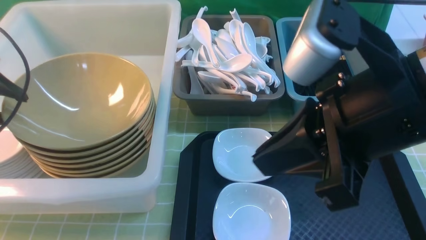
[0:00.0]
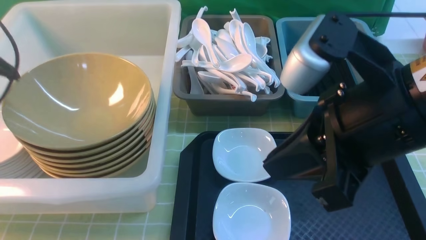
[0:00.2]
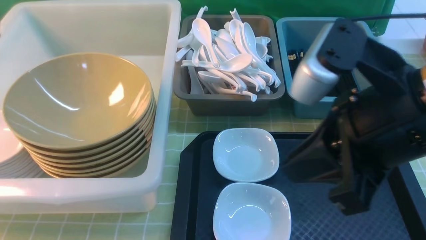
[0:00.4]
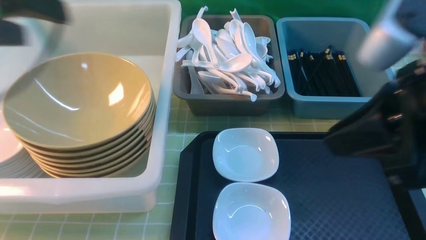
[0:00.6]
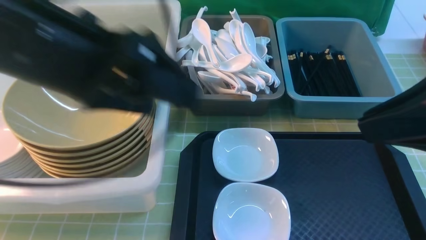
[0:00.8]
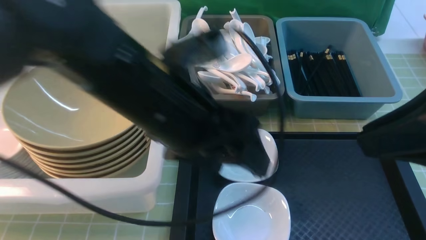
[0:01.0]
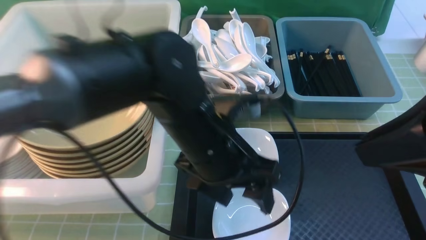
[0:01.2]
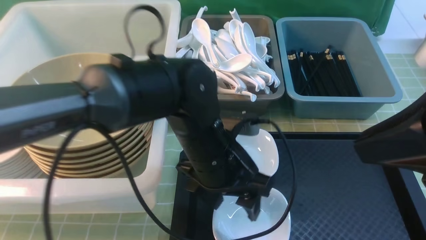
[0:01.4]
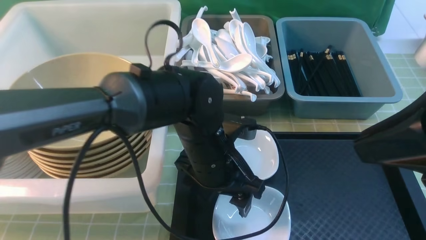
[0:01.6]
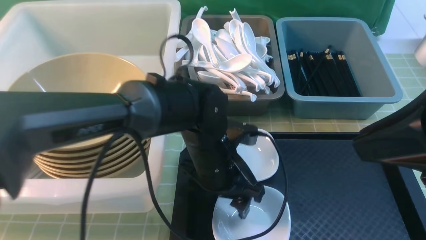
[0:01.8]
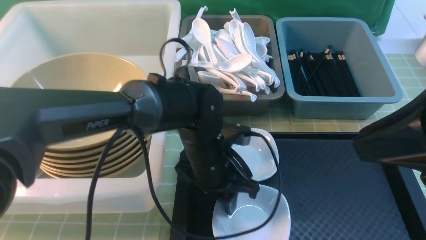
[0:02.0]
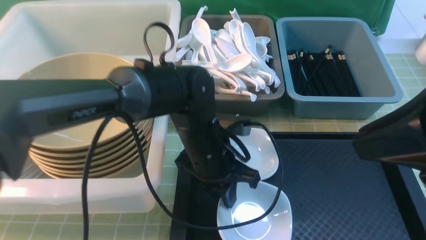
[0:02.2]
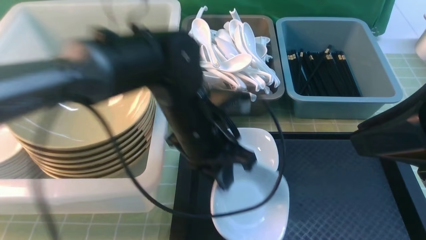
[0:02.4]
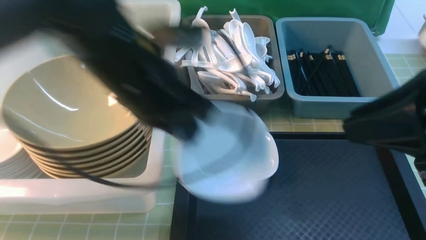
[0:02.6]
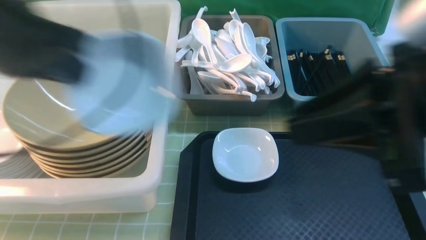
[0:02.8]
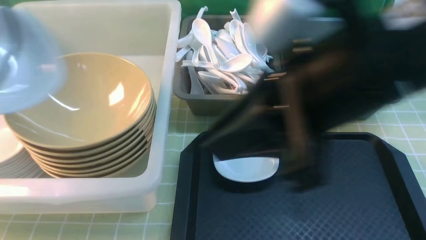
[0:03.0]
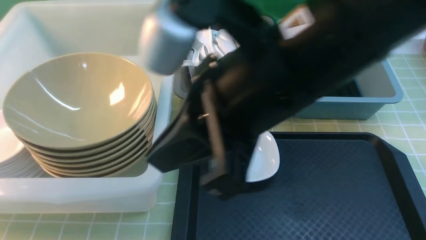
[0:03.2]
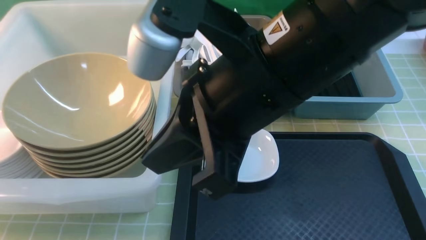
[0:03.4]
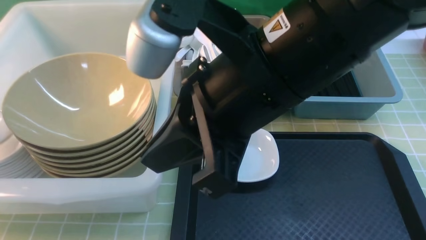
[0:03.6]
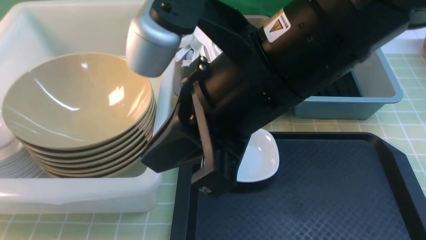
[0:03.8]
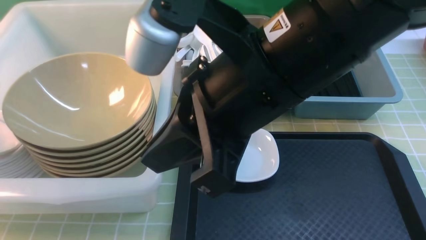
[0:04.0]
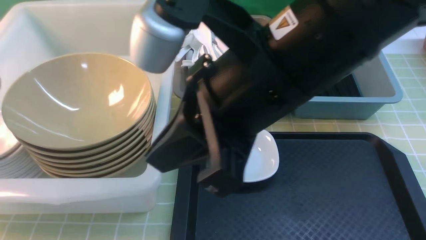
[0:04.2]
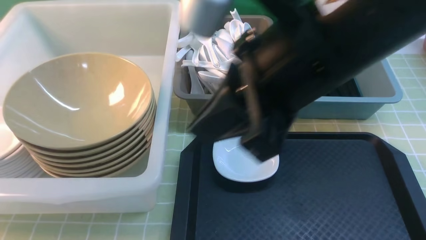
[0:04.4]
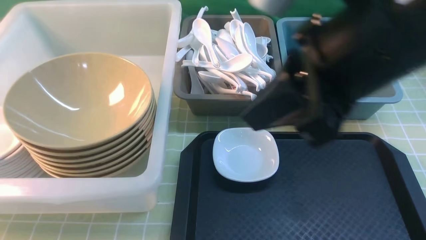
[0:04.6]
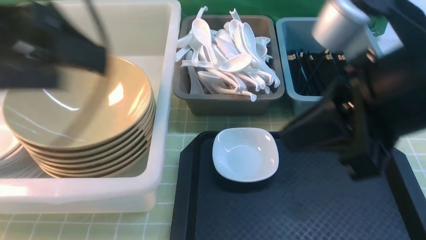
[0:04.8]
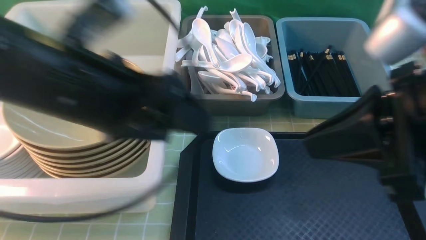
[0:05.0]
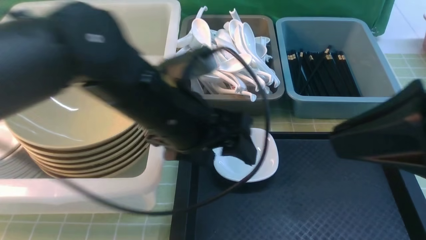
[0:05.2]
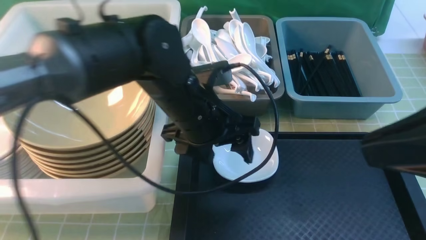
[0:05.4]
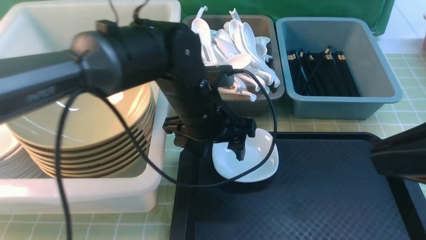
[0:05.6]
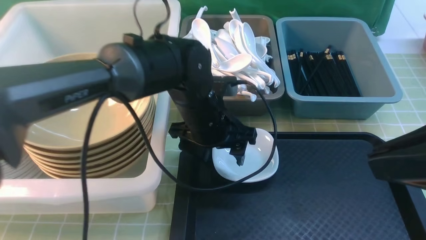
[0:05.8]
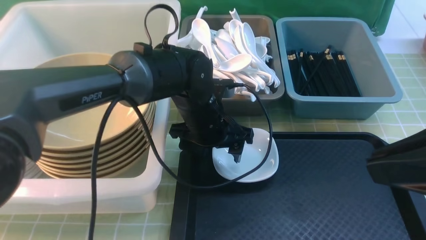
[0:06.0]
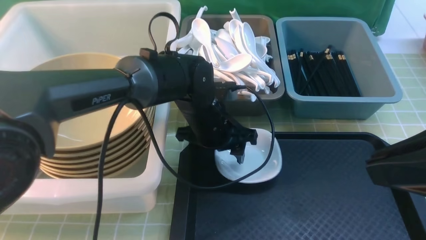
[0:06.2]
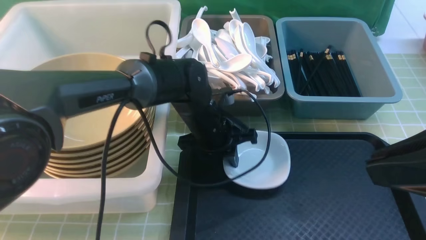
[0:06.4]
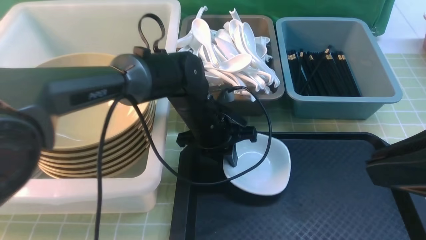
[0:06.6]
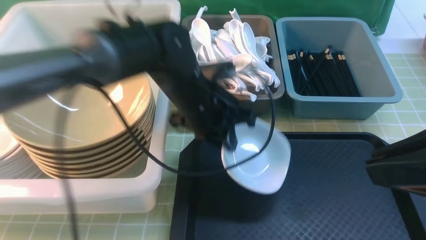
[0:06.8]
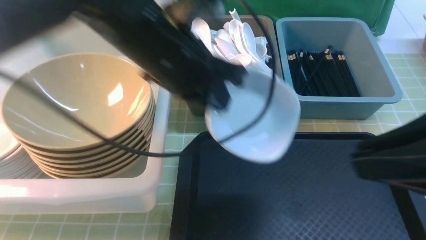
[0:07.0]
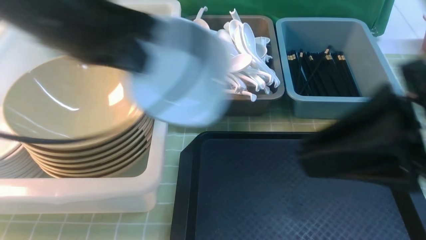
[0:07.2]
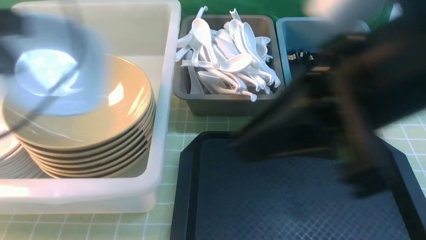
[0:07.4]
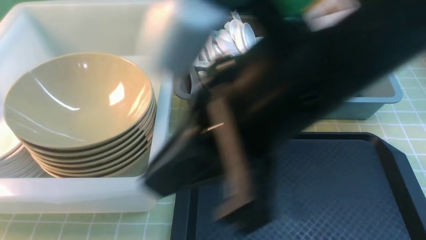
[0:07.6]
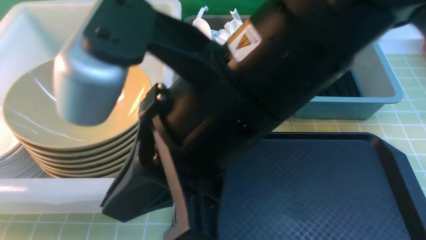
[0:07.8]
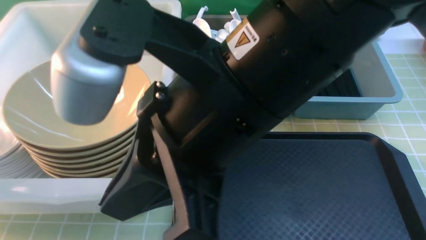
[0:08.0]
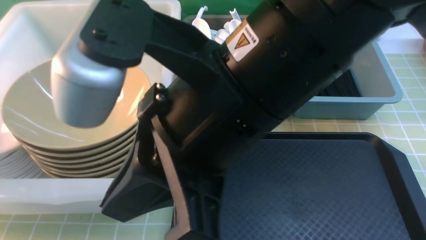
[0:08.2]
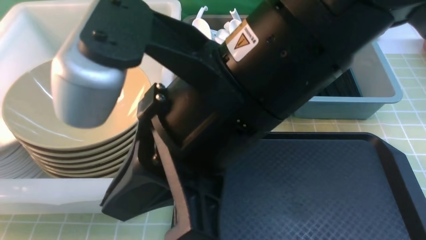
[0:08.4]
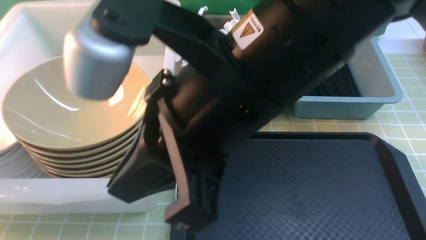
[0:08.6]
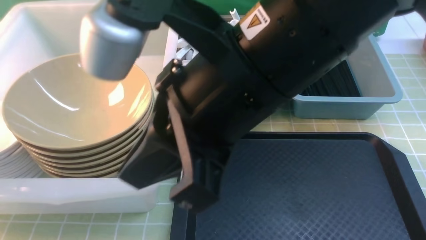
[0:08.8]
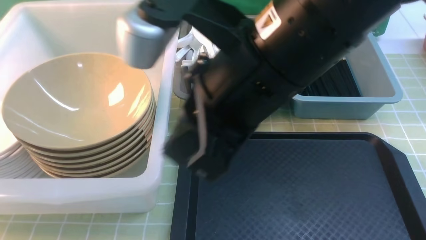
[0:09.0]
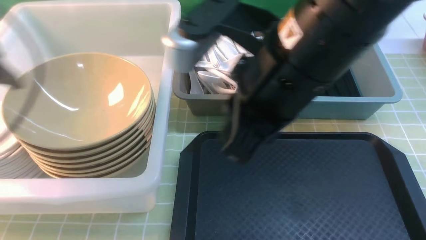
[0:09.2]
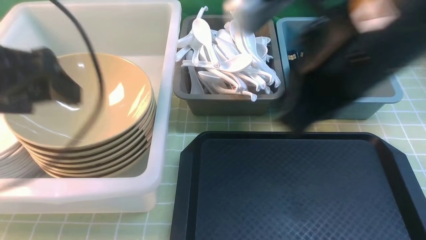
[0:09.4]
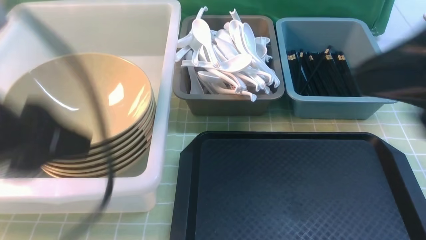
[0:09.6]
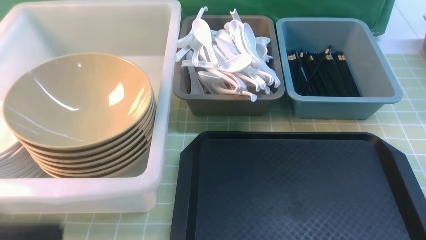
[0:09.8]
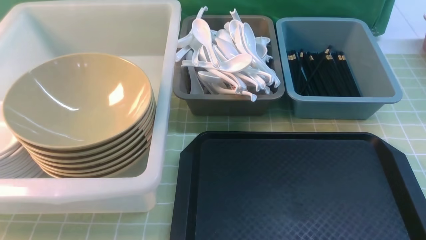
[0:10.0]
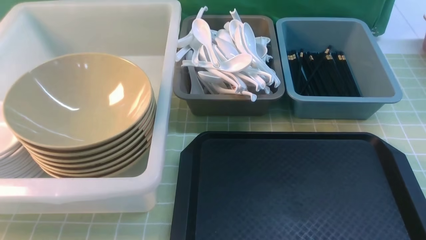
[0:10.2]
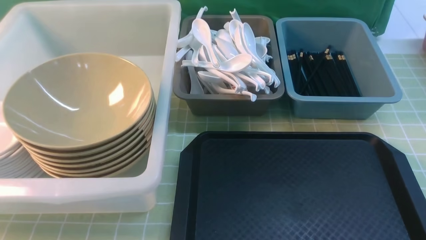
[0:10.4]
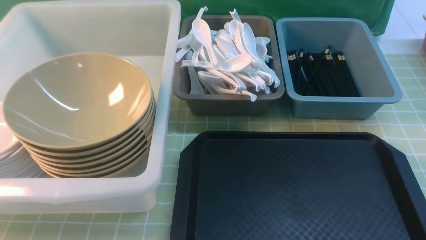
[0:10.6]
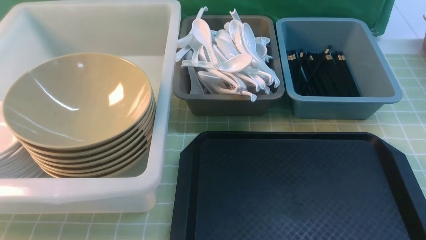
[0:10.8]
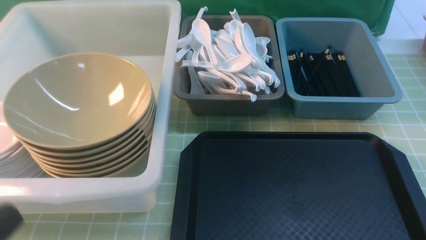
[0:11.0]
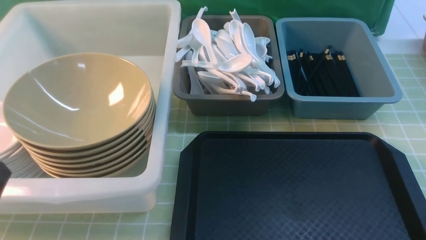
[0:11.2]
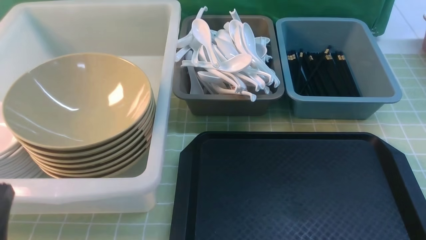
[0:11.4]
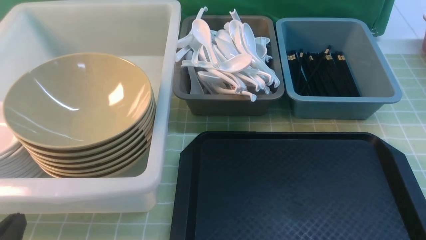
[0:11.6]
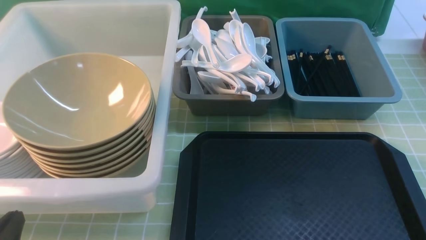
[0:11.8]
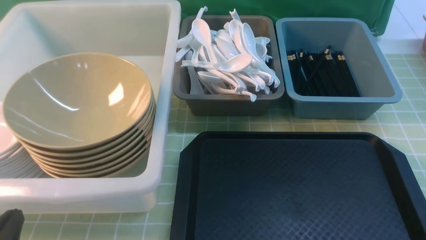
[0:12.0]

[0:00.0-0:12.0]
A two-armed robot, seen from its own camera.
Task of the whole recording: on green table put chopsticks spoon bowls plates into blue grey white boxes.
Step, 0:00.2 to 0:02.2: use the left arm to grab the plate.
Step, 0:02.4 to 0:04.2: use the left arm to put the plate into the large storage box on the left.
Step, 0:04.4 to 0:06.6: use the left arm to grab the plate.
Step, 0:06.8 to 0:09.0: use the left arm to put the plate into the large storage box on the left.
0:00.0 to 0:01.6: The right gripper moves to the right, approximately 10 cm. The left gripper goes some 35 cm to the right.
0:01.6 to 0:03.0: The left gripper moves to the left and upward, approximately 40 cm, and closes up. Meanwhile the right gripper heads to the left, covering about 10 cm.
0:03.0 to 0:04.4: The left gripper goes approximately 5 cm to the left, and opens its fingers.
0:04.4 to 0:06.0: The right gripper is displaced to the right and backward by roughly 15 cm, while the left gripper heads to the right and downward, covering approximately 40 cm.
0:06.0 to 0:07.6: The right gripper moves to the left, some 15 cm; the left gripper is displaced to the left, upward and backward by some 40 cm, and closes up.
0:07.6 to 0:09.0: The left gripper travels downward by some 5 cm, and opens.
0:09.0 to 0:10.4: The right gripper shifts about 35 cm to the right, backward and downward. The left gripper travels backward and to the right by about 30 cm, and closes up.
0:10.4 to 0:12.0: The left gripper travels downward and forward by approximately 15 cm.

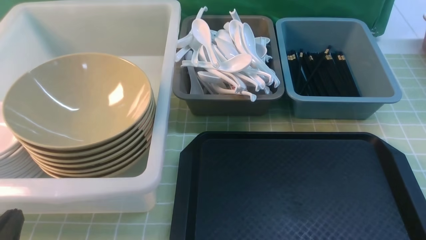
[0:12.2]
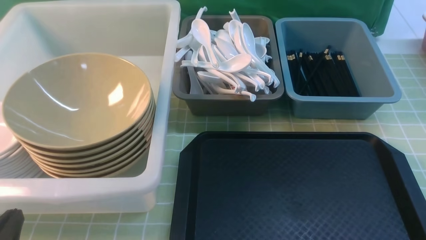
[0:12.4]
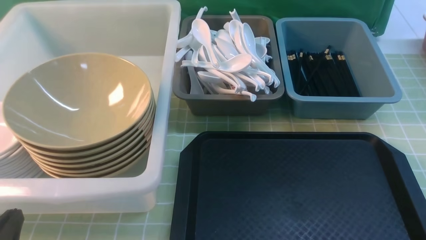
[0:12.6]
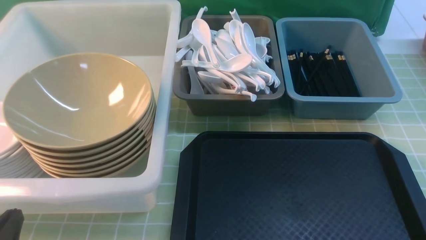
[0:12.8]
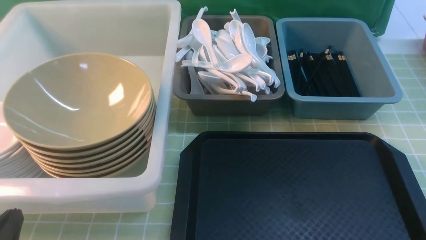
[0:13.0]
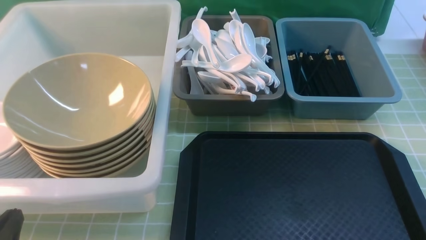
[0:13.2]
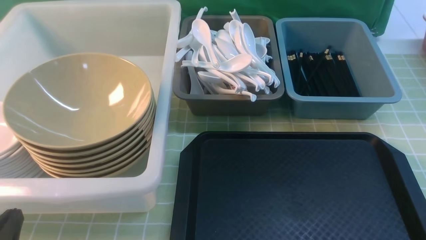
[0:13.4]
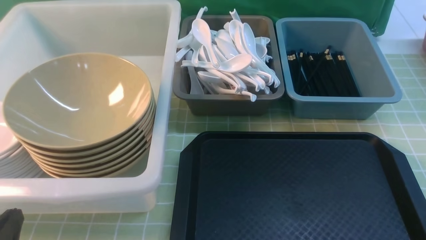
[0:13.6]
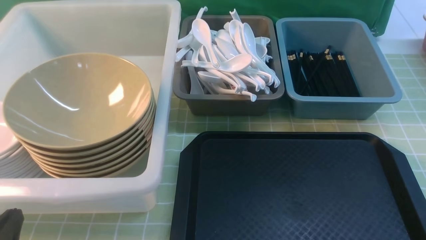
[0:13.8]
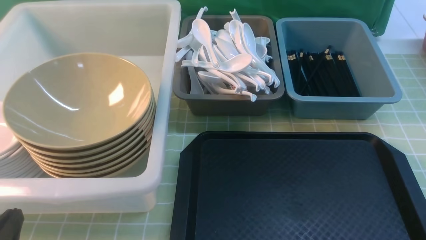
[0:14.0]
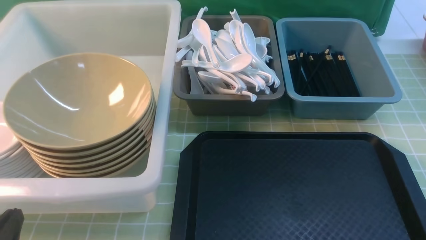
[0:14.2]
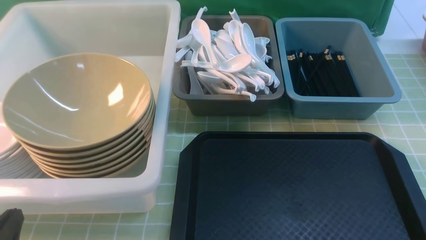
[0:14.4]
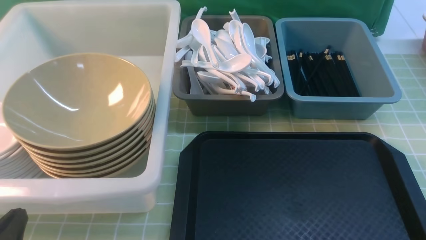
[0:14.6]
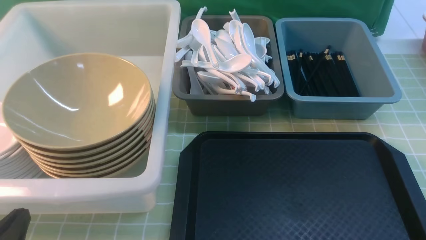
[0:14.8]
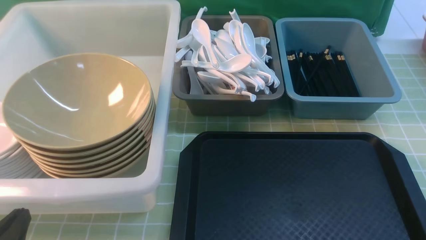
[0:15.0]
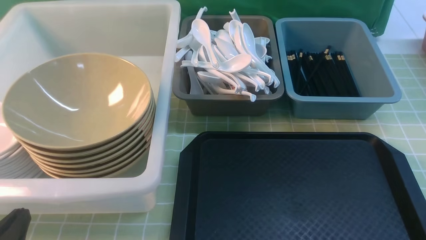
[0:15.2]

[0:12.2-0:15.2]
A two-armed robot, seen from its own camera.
Task of the whole recording: on green table put chopsticks spoon bowls plates into blue grey white boxes.
0:13.8 to 0:15.2: The two grippers keep their place.
